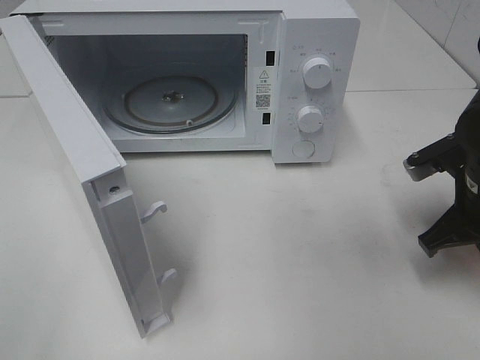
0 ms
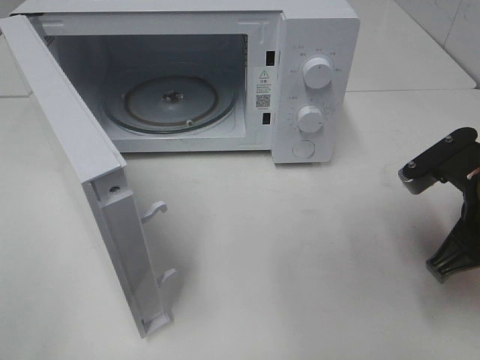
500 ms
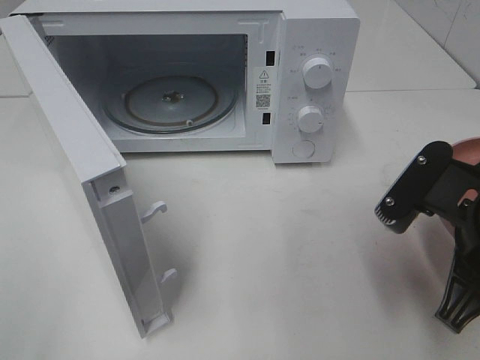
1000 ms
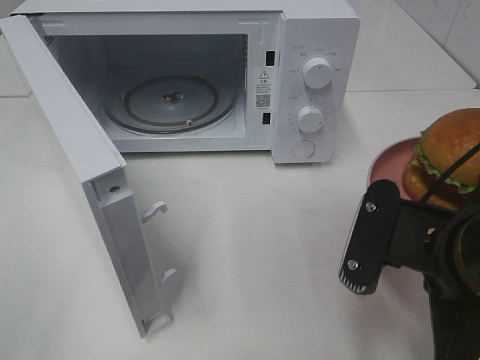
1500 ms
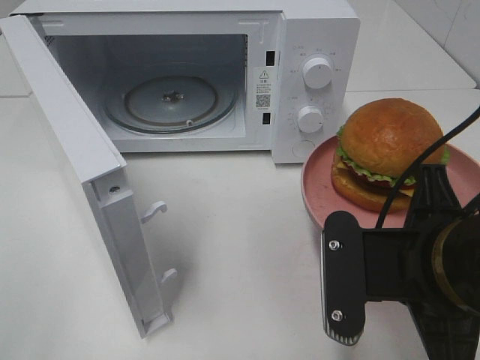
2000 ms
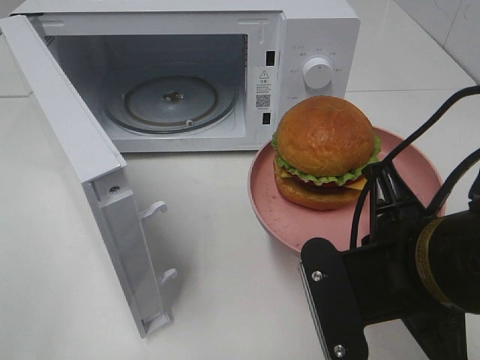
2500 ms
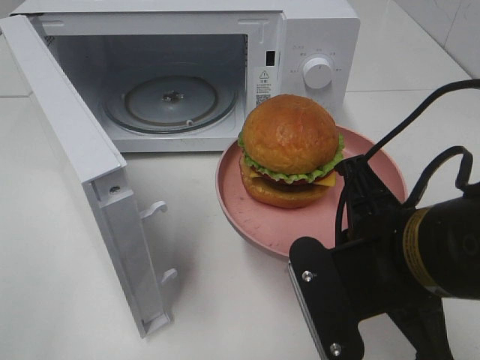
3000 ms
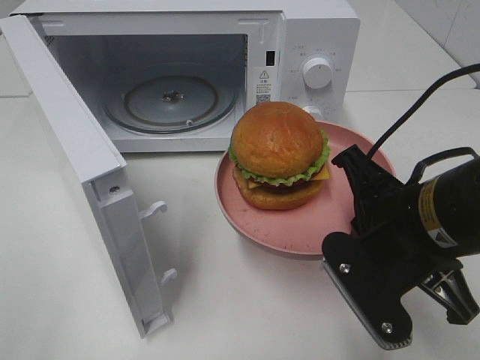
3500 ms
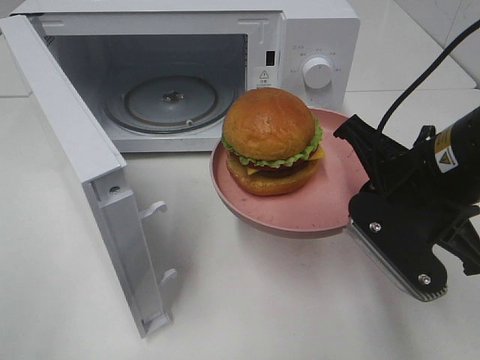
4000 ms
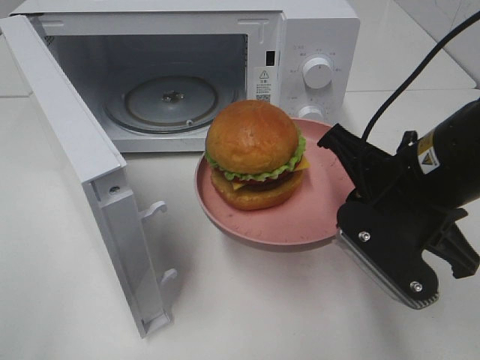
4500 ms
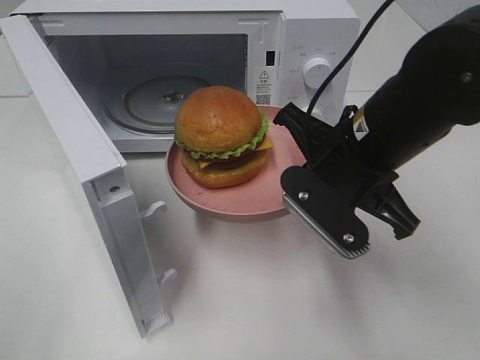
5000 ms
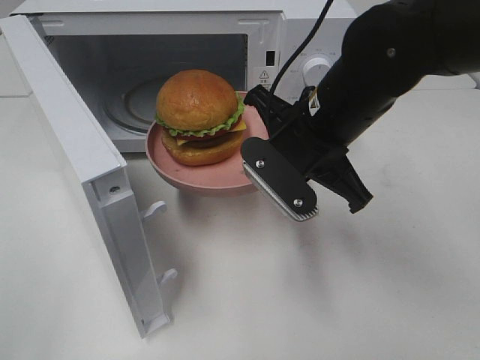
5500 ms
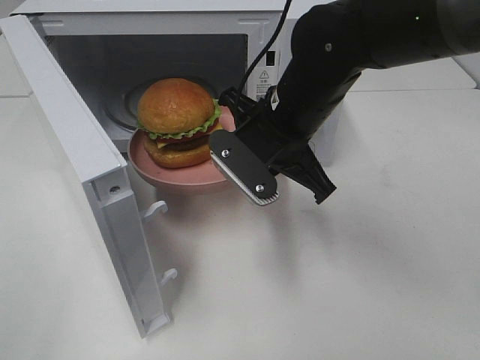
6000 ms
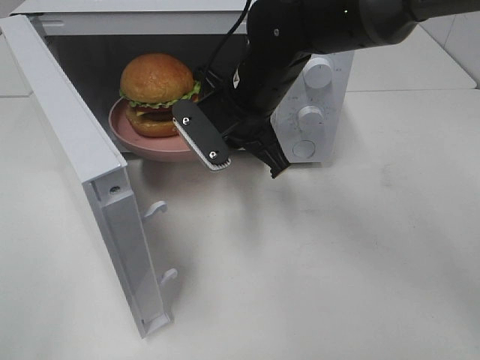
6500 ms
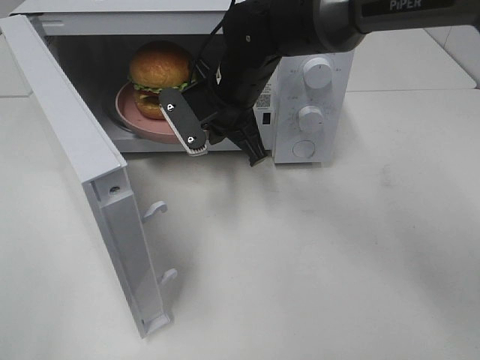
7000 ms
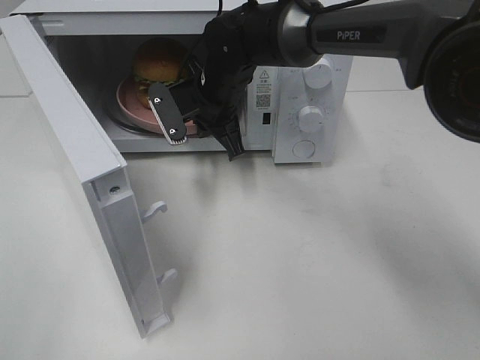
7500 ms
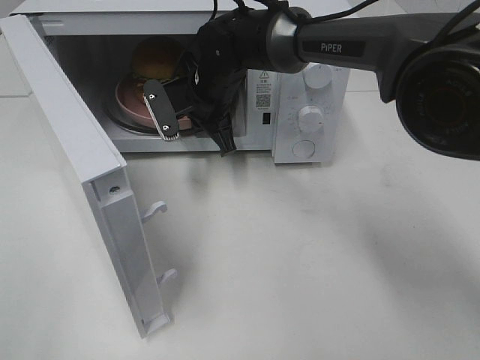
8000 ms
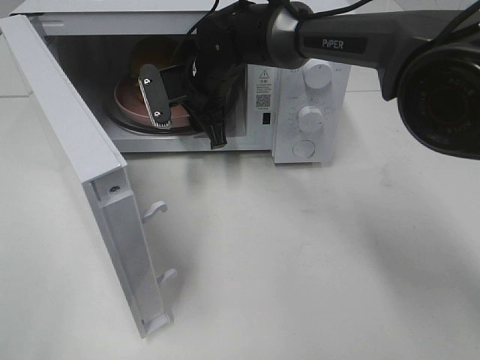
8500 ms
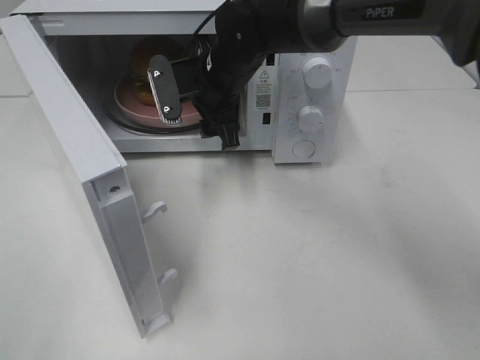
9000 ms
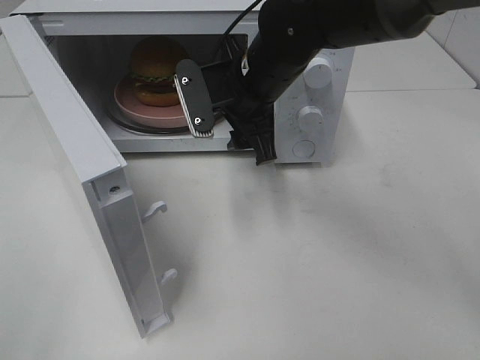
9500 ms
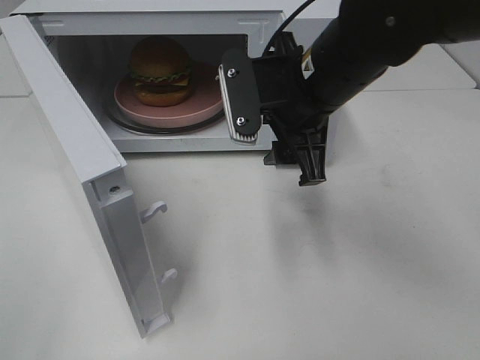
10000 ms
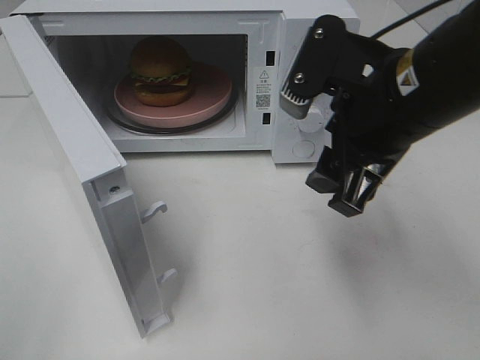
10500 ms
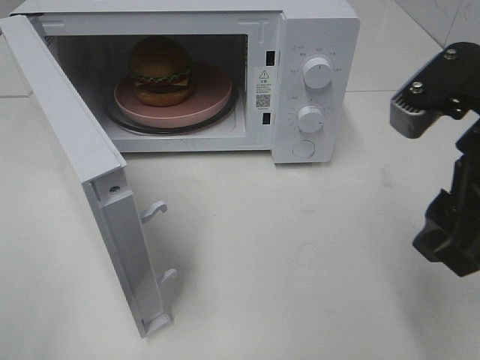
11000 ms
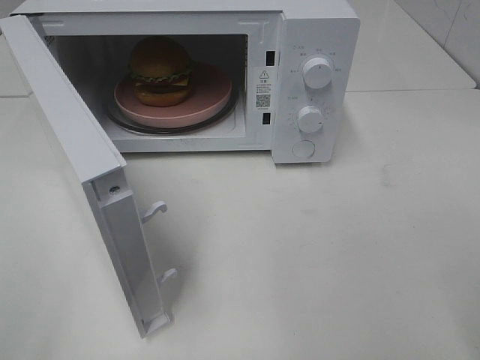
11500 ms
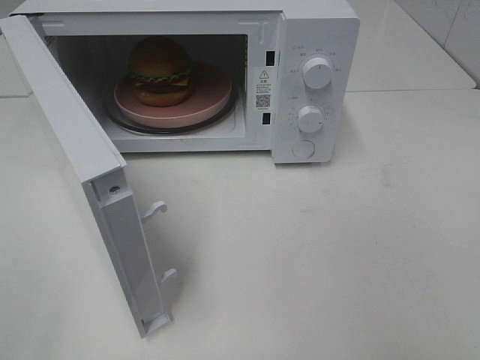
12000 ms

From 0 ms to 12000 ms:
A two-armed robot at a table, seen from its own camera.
Task of the whole recording: Heat the burger.
Step, from 0 ms to 8500 ms: Right hand: place the plate in the microwave.
From 0 ms to 2000 ms: The right gripper heads backward and to the left, covering approximately 15 cm.
From 2000 ms to 4000 ms: The right gripper is displaced forward by roughly 10 cm.
From 4000 ms to 6000 ms: The right gripper travels forward and to the left by about 15 cm.
From 6000 ms to 8000 ms: The right gripper heads forward and to the left, covering some 15 cm.
From 8000 ms to 10000 ms: The right gripper goes some 20 cm backward, to the right and upward, and opens up.
From 10000 ms to 12000 ms: The right gripper is displaced backward and to the right by approximately 30 cm.

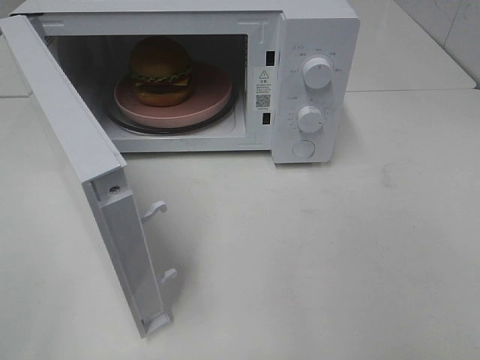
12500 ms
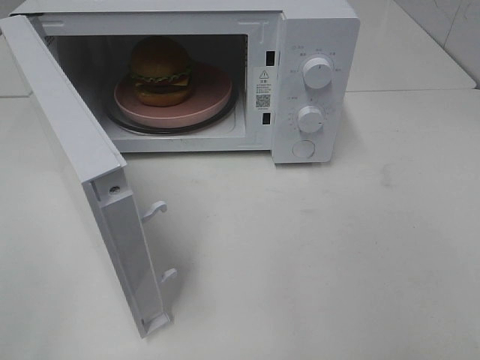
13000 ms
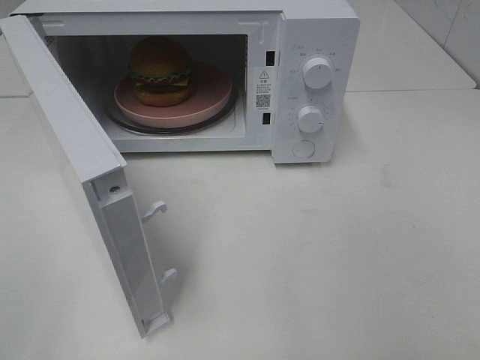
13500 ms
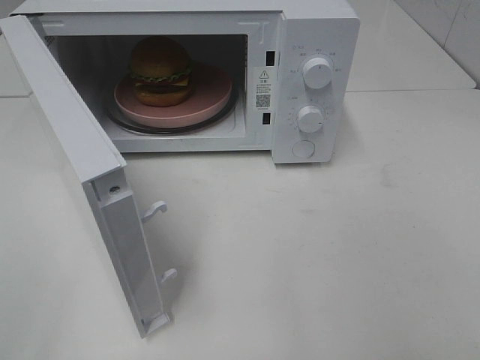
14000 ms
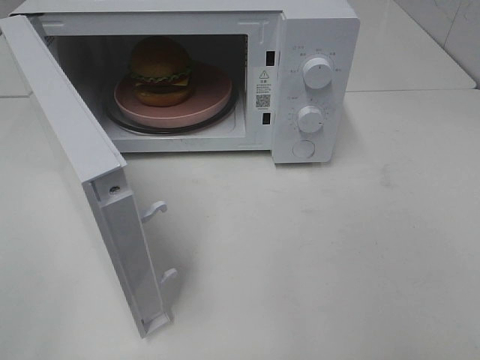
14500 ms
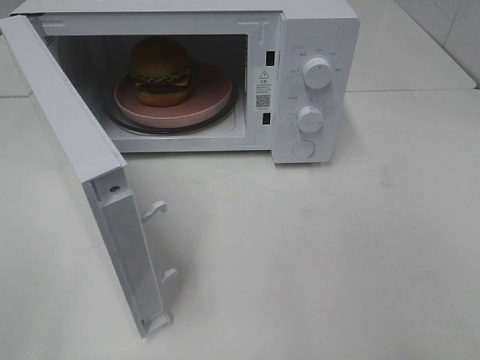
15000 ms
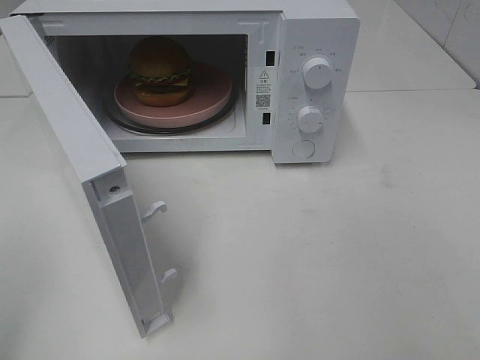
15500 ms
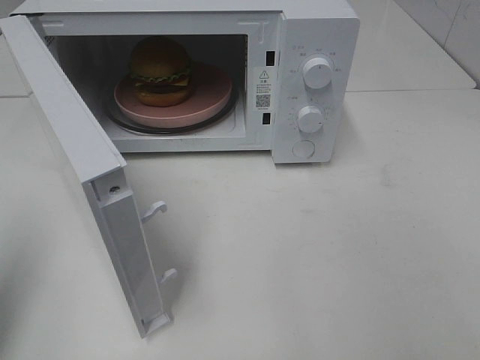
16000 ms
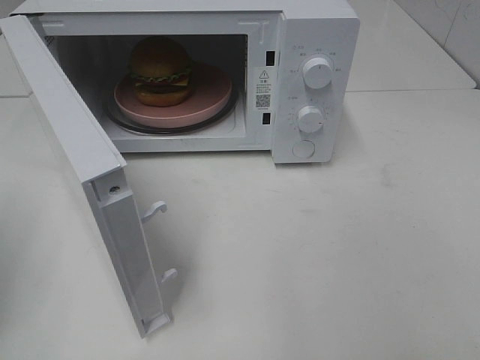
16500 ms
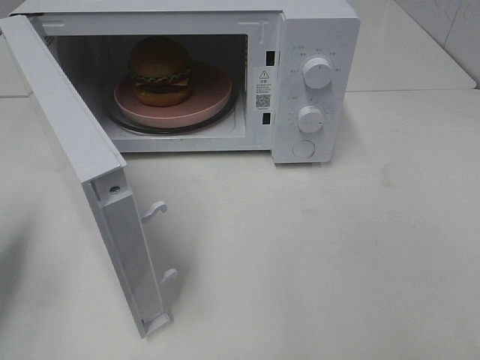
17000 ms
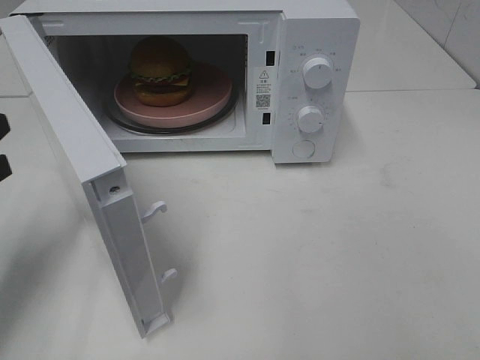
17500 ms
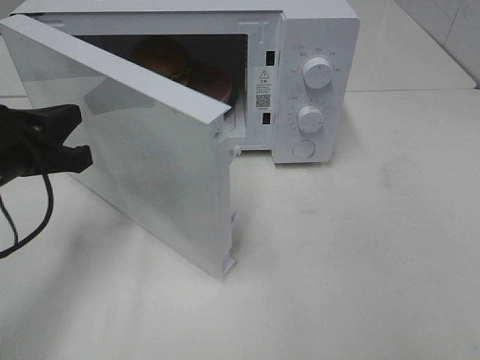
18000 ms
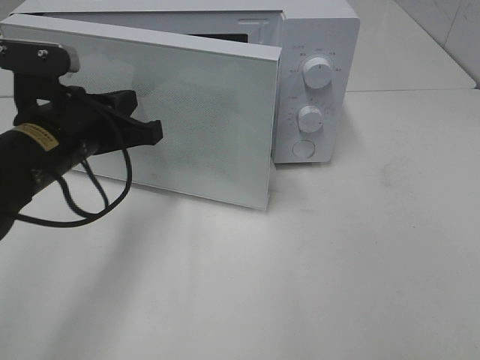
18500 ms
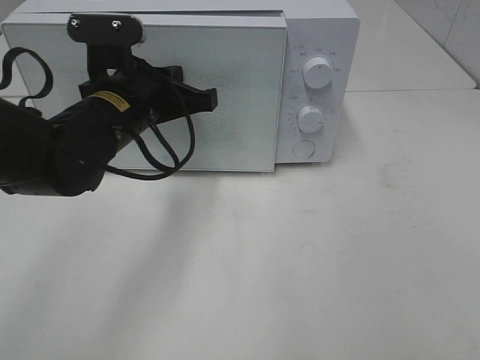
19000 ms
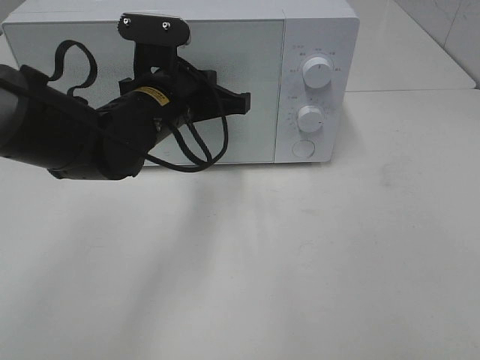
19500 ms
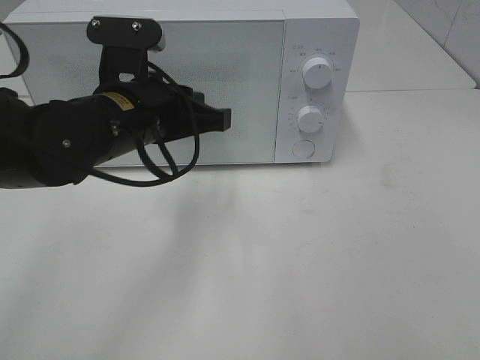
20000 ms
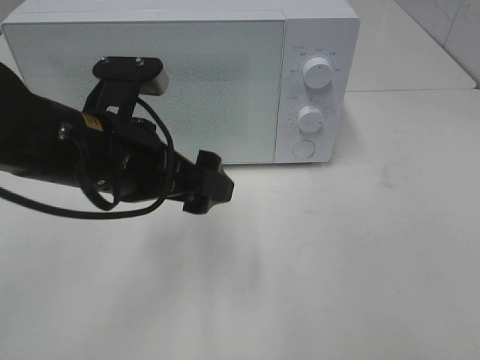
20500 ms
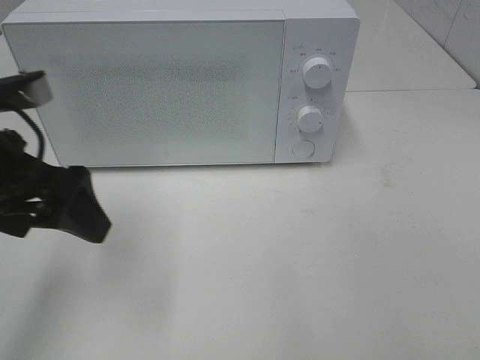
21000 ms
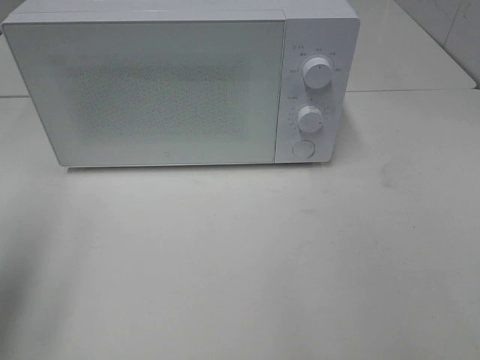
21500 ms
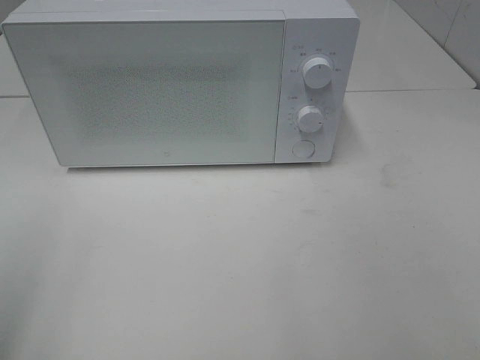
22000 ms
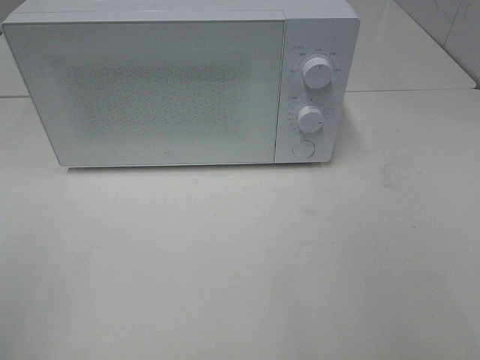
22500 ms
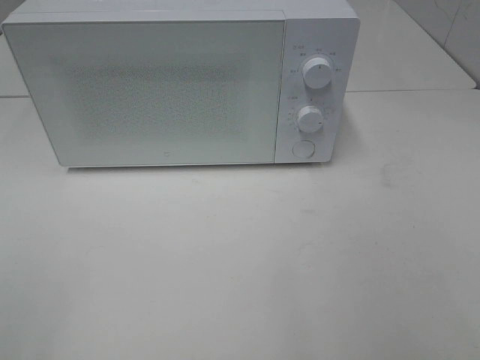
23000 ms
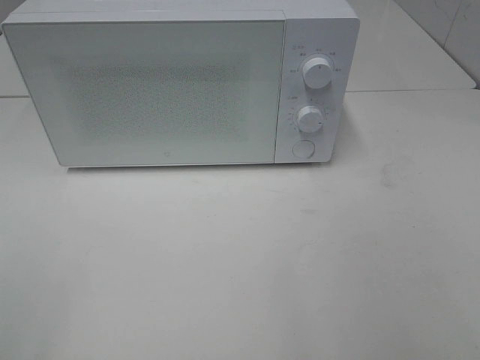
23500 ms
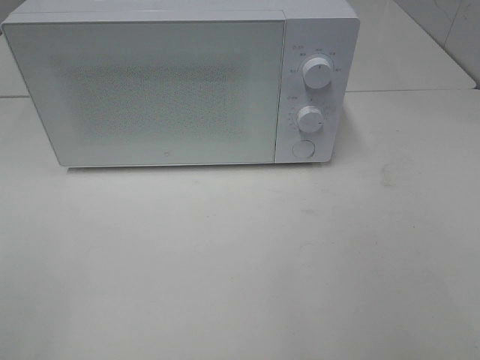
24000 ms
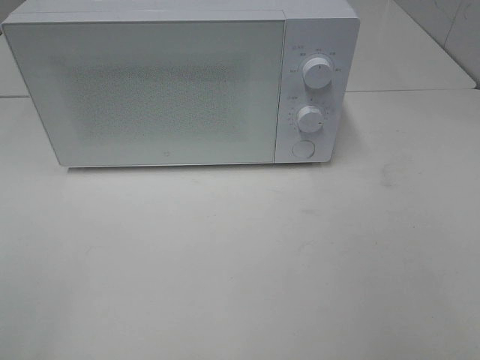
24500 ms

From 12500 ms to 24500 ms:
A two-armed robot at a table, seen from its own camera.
Task of the whole recording: Heat the burger.
Step, from 12500 ms to 20000 ms: Left hand: close the microwave door.
From 16500 ms to 18500 ms: The left gripper moves to the right and forward, approximately 20 cm.
From 18500 ms to 20500 ms: The left gripper ends up approximately 5 cm from where it was, and opens its fingers.
From 20500 ms to 22500 ms: The left gripper shifts approximately 30 cm to the left and backward.

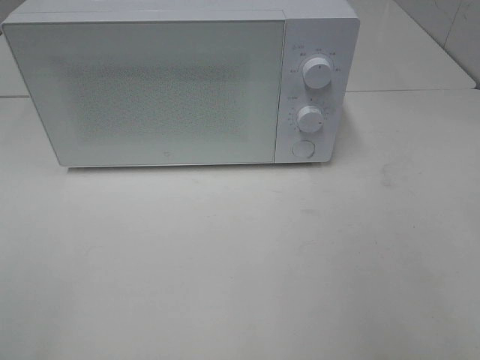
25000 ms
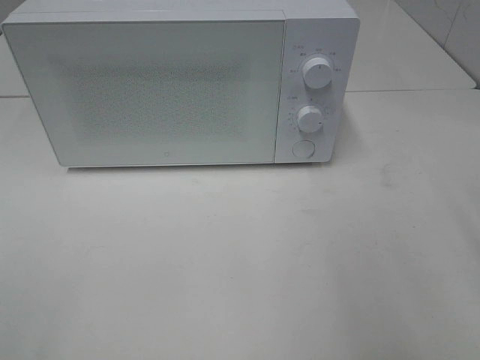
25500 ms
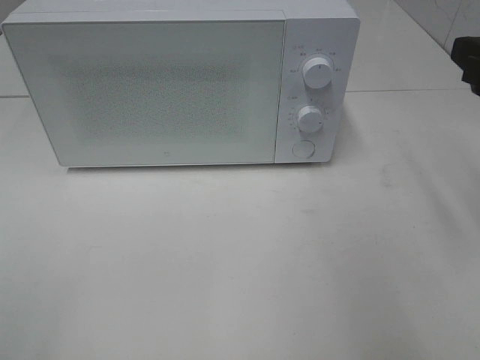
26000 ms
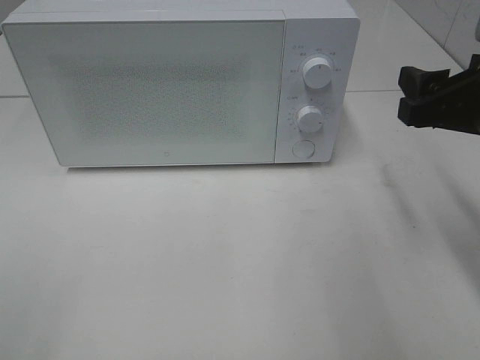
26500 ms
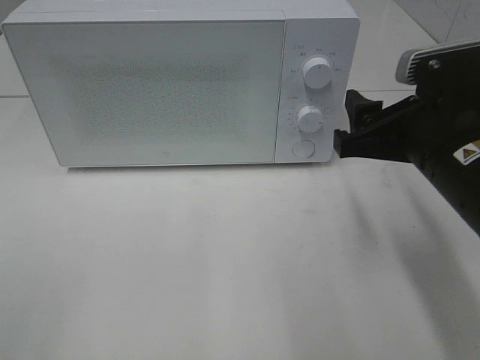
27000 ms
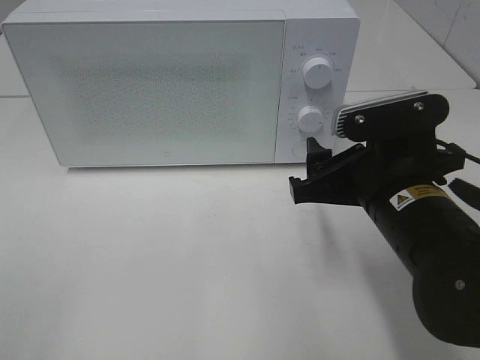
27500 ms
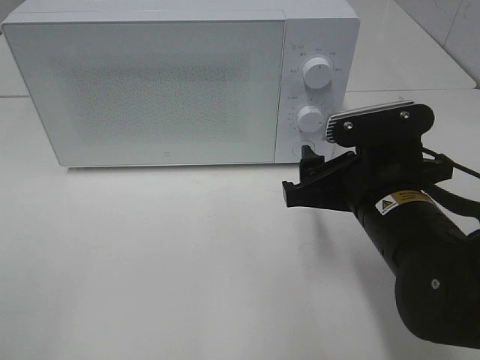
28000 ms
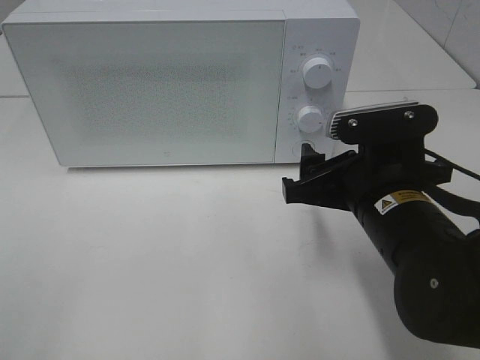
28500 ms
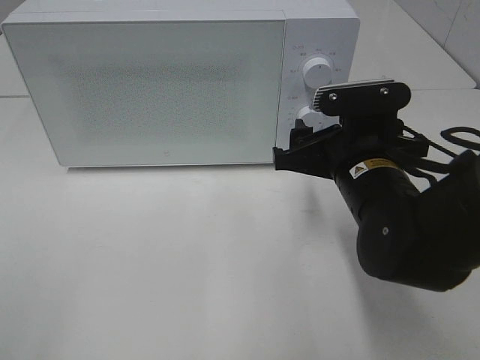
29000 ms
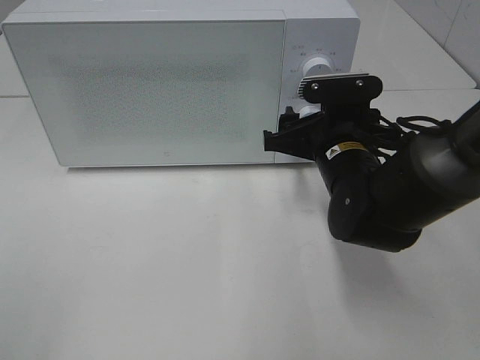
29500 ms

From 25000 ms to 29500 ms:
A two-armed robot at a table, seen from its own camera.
Task of the whole recording: Heat the burger.
From 25000 ms to 27000 ms: The right gripper goes approximately 20 cm forward, downward and to the left.
From 27000 ms to 29500 ms: The right gripper is displaced forward, downward and to the left by about 15 cm.
